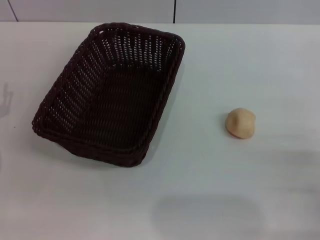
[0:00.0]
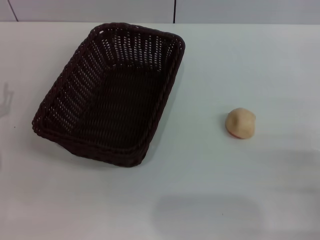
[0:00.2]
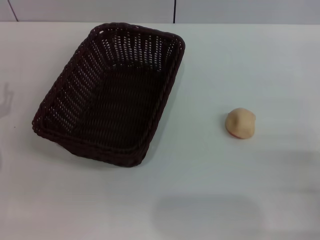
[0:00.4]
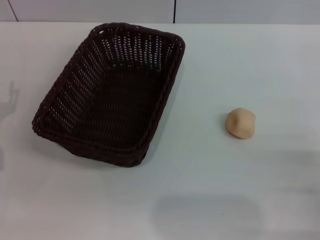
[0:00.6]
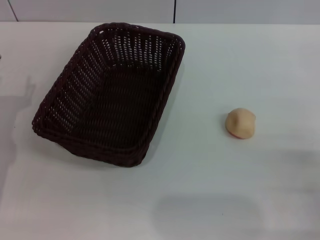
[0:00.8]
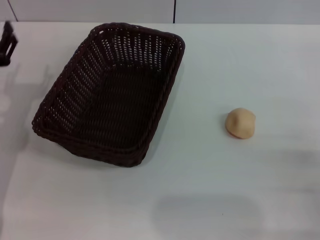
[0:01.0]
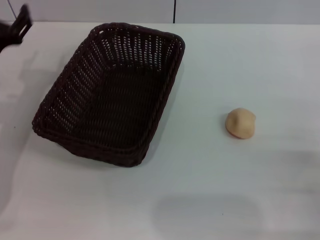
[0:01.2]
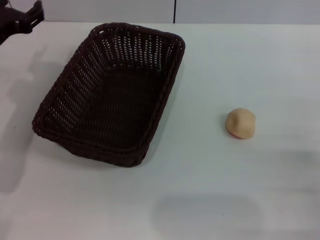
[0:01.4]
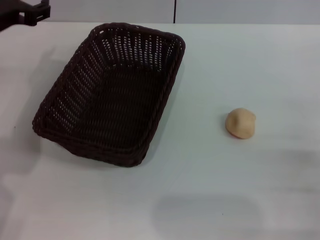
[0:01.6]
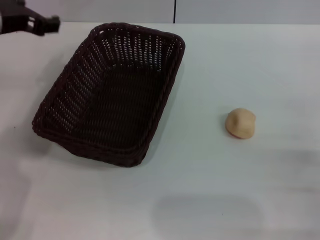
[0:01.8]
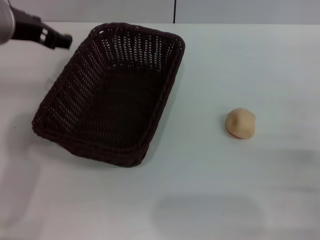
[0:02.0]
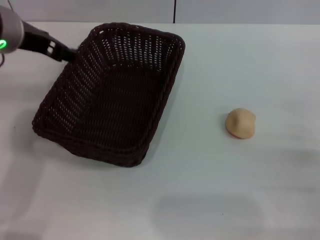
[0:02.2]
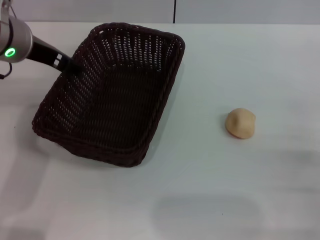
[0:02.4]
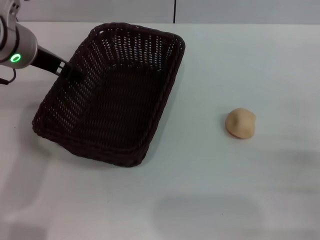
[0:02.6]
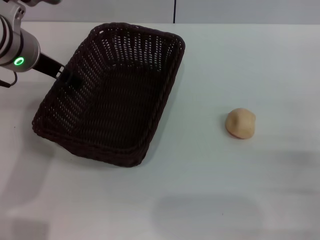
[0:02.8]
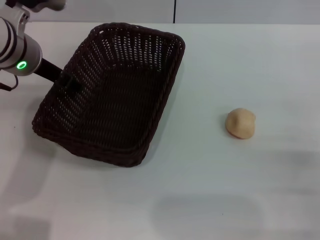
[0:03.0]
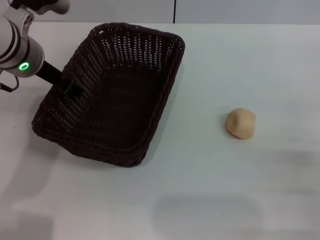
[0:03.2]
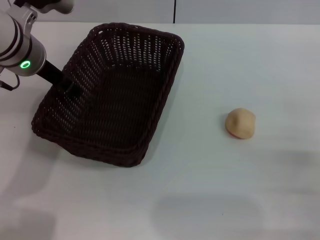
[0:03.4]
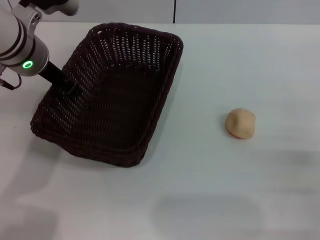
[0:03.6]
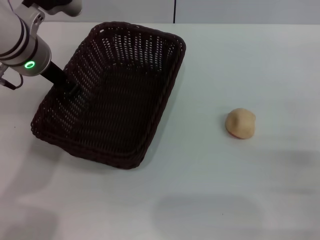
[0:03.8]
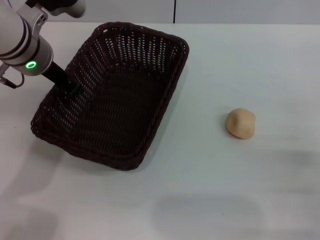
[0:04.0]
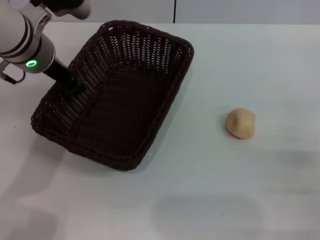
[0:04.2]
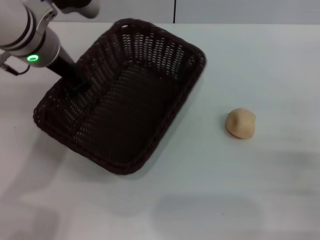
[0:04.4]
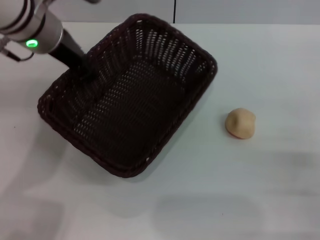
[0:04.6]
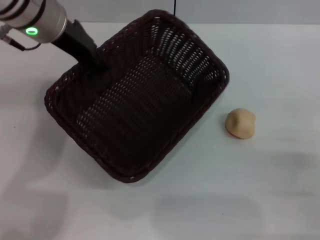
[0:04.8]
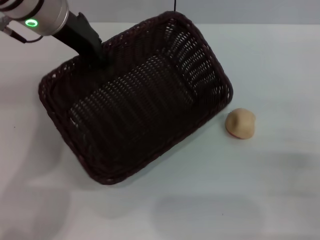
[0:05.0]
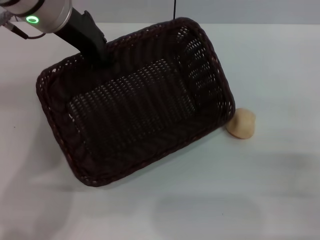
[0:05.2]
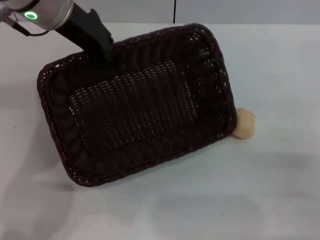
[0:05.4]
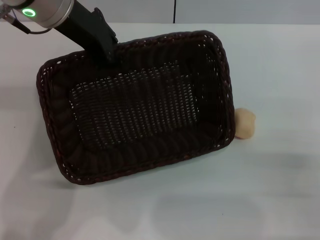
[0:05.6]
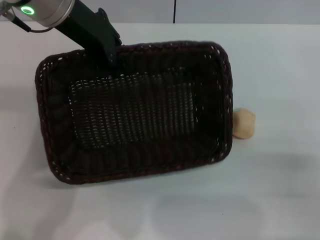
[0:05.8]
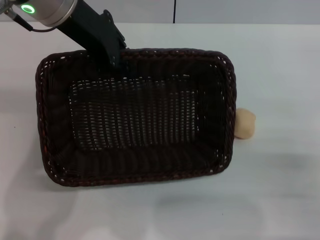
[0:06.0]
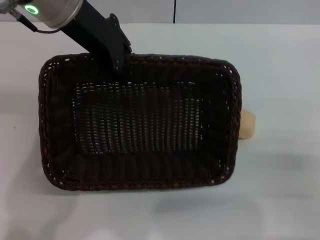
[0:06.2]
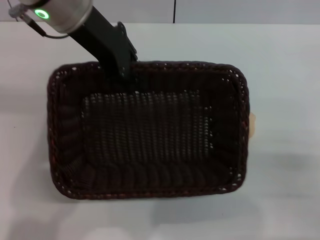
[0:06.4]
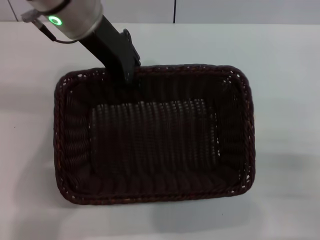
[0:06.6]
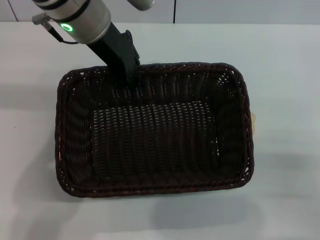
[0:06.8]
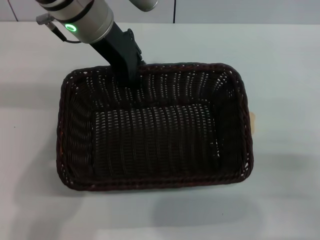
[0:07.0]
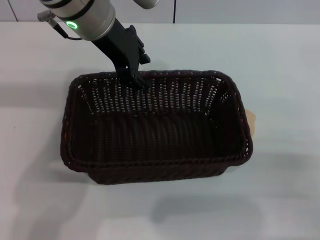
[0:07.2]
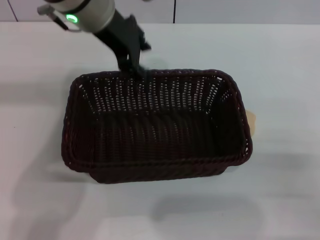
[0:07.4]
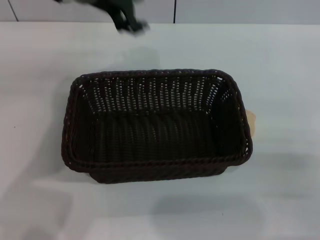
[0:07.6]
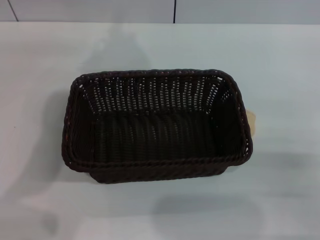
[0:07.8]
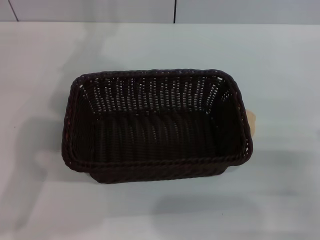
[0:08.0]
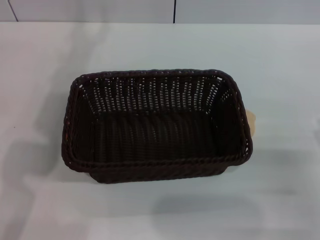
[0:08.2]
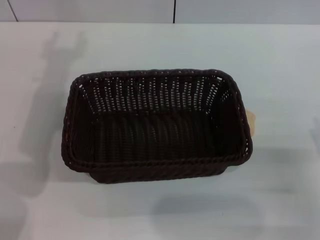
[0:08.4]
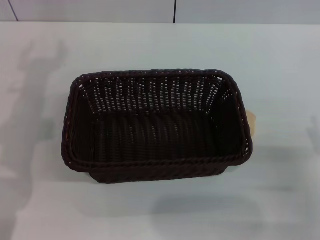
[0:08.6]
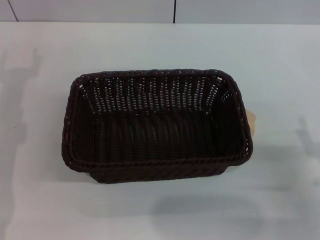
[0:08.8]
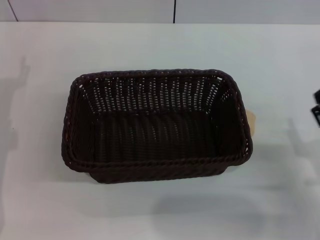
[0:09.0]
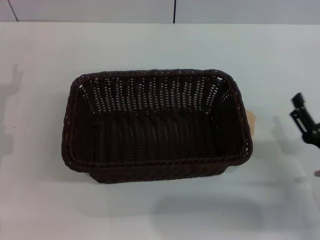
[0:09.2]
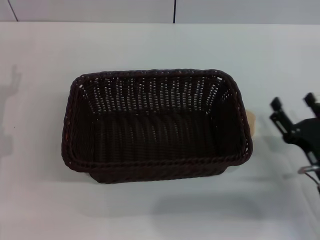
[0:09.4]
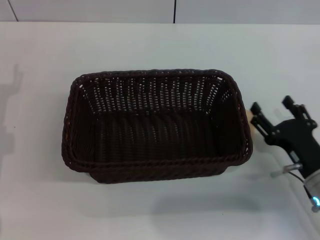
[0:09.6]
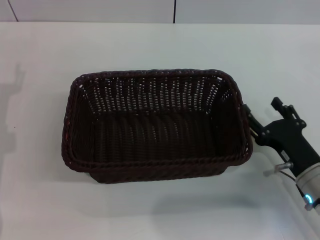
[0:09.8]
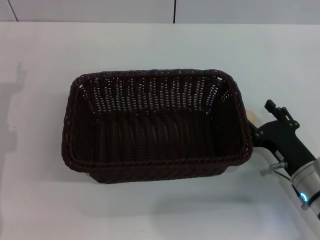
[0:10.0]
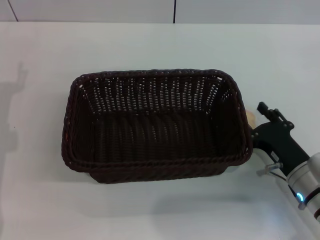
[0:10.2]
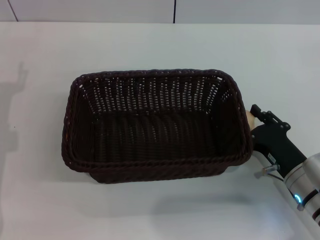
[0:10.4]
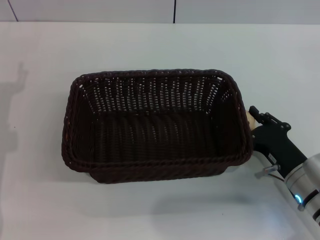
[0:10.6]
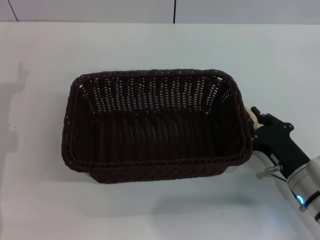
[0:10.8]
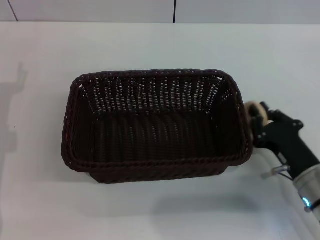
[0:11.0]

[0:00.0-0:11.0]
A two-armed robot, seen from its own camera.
Step, 0.0 to 7.4 s: Move the basket to the center of view with the left gripper.
0.0 to 1.6 s: The left gripper goes some 20 cm upward, forward and to the right.
1.6 to 3.2 s: The left gripper ends up about 5 cm from where it was.
3.2 to 4.8 s: The left gripper travels upward by approximately 5 cm, and closes.
6.2 to 7.8 s: The left gripper opens up.
7.8 to 9.4 s: The right gripper goes approximately 5 cm forward.
9.4 to 11.0 s: The right gripper closes up.

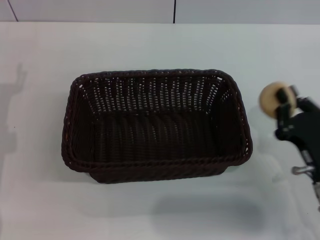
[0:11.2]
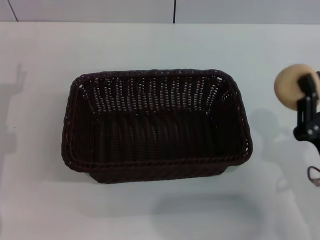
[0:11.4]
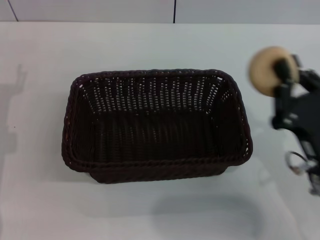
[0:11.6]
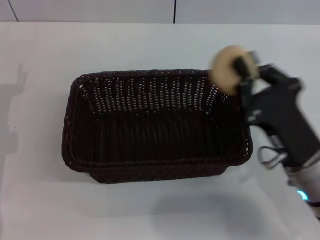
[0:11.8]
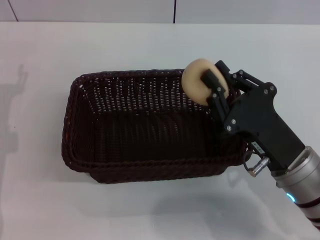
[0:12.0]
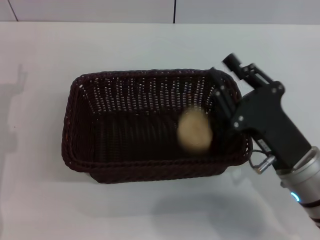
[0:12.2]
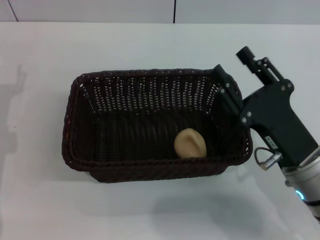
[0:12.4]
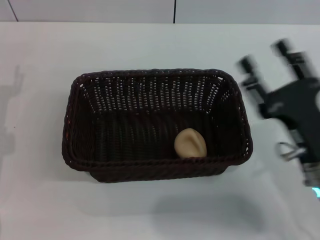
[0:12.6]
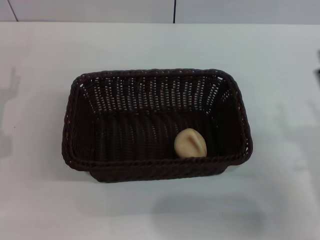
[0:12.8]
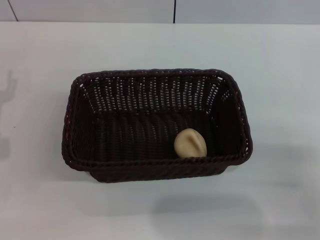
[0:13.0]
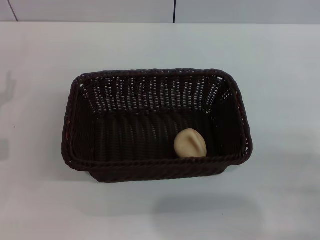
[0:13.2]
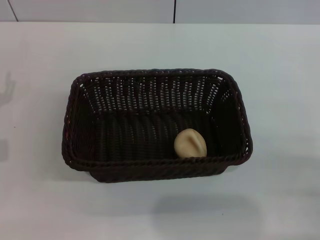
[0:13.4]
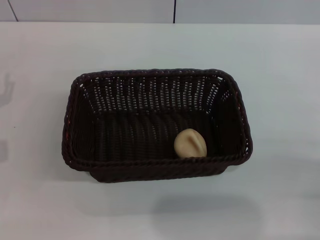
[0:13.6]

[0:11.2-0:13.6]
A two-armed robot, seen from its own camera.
Step, 11.4 to 12.4 s: Place the egg yolk pastry into the basket with the right gripper.
11.2 to 12.4 s: The right gripper moves some 5 cm.
12.4 to 13.6 s: The right gripper moves to the right and backward, approximately 15 cm, and opens.

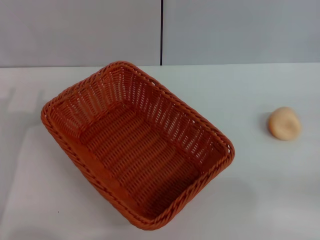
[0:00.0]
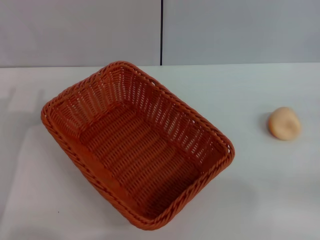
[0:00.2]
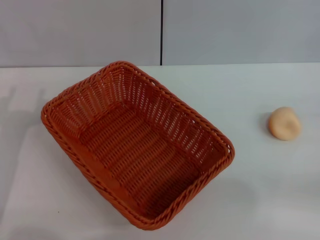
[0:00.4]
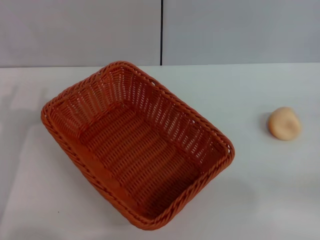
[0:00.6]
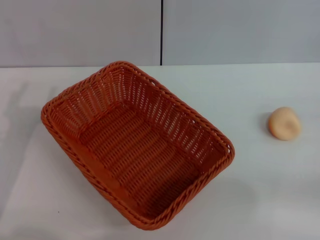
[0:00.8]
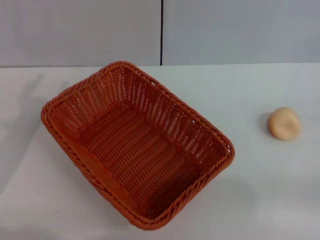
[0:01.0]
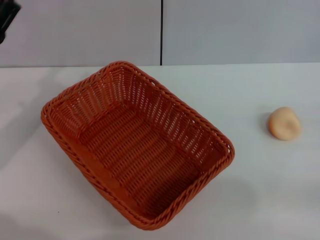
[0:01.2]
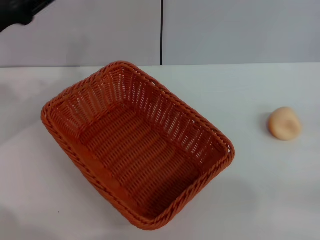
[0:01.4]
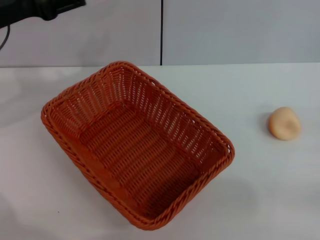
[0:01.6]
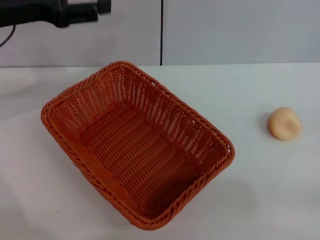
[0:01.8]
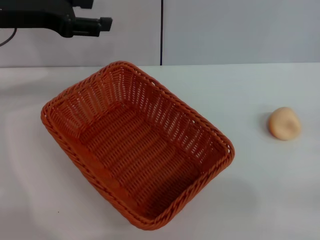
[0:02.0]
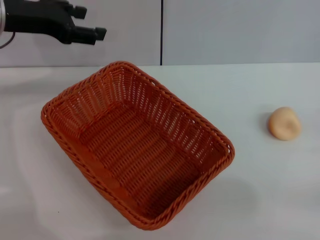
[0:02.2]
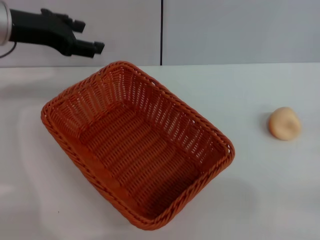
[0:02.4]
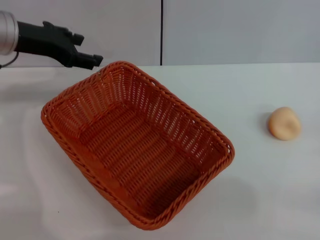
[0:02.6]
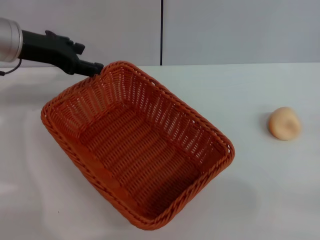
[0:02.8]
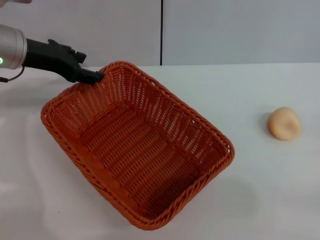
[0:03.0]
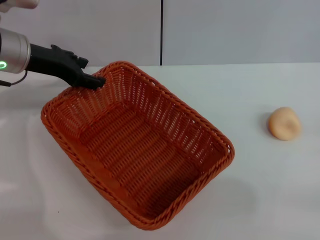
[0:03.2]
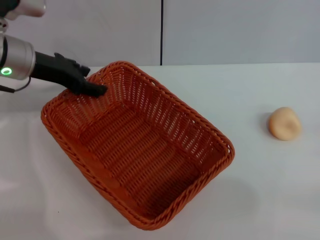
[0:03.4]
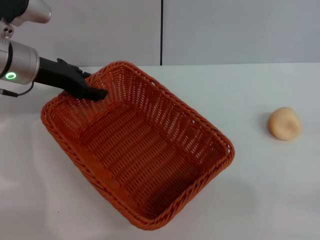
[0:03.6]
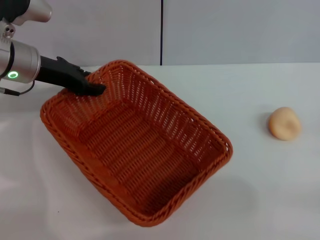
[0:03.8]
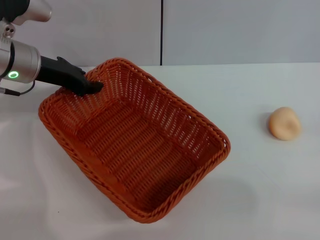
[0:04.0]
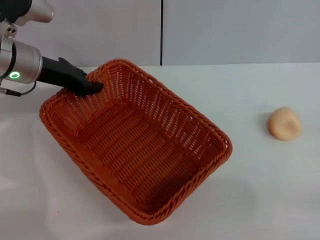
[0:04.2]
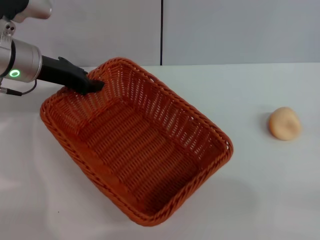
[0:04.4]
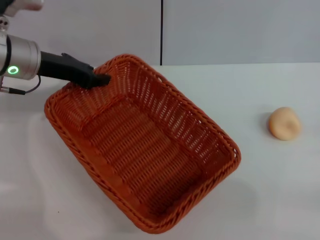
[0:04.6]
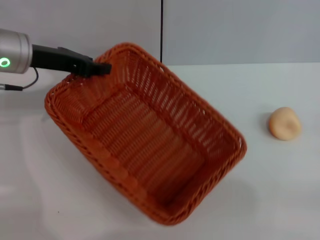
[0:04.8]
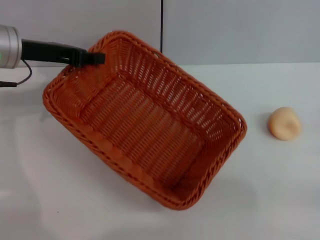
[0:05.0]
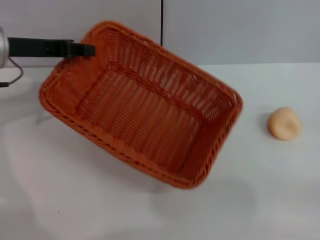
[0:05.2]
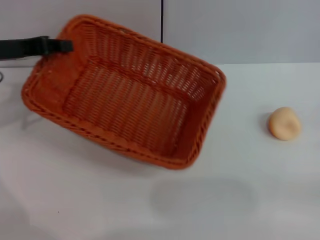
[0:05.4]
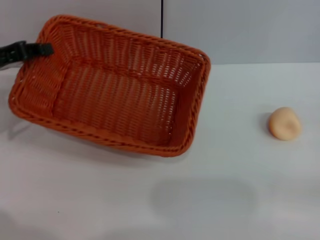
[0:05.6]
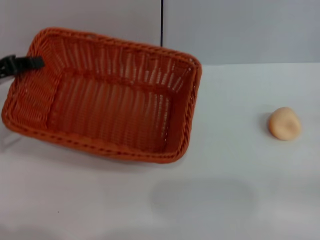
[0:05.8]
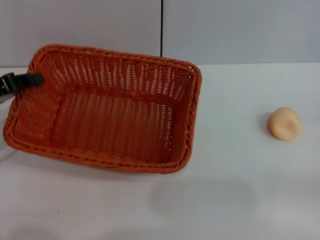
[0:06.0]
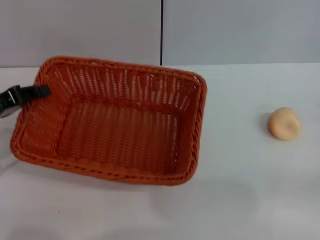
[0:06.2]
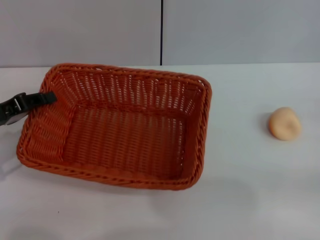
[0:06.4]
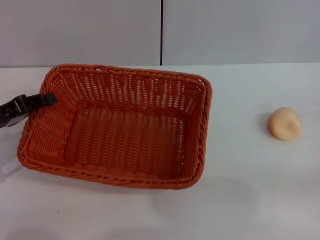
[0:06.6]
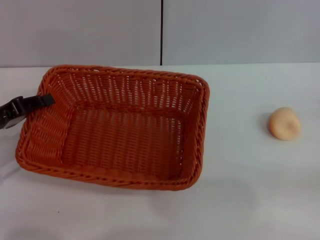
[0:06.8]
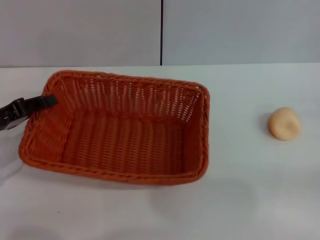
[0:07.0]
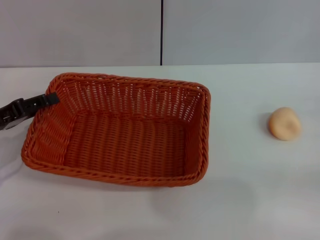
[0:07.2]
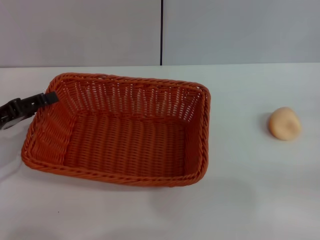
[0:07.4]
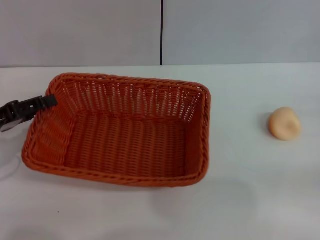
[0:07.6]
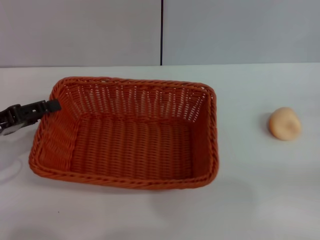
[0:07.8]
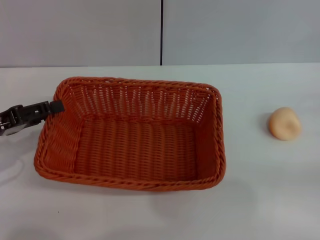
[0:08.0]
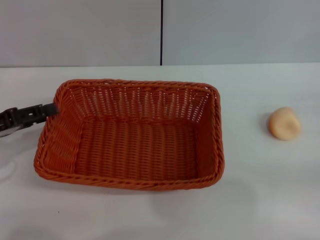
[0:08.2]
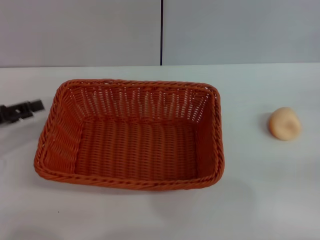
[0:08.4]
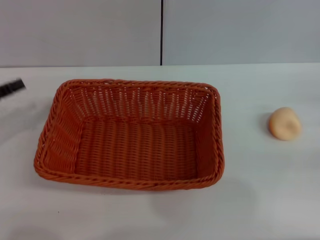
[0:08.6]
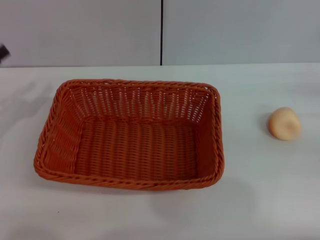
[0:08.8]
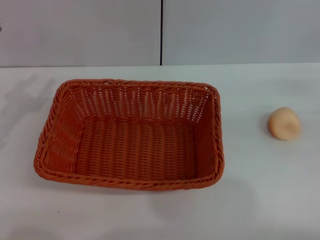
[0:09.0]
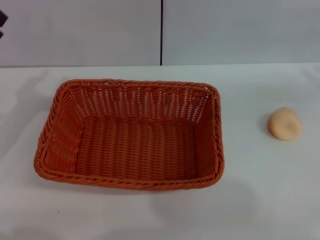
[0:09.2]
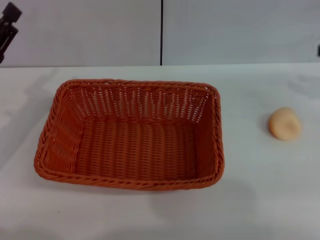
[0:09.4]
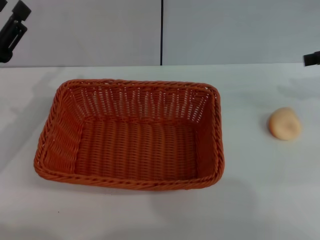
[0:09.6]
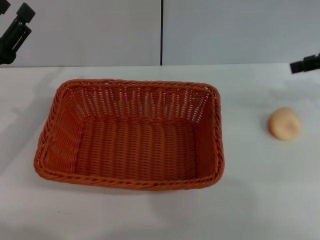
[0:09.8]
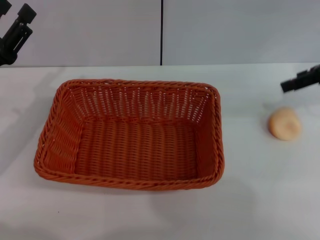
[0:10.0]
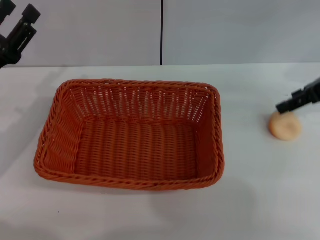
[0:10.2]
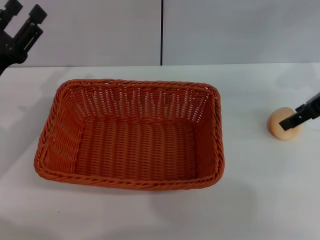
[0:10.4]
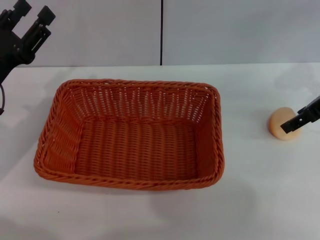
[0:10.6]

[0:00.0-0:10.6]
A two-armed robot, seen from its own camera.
Step, 0.0 to 8.4 s: Move the basket to the center of view with the left gripper.
0.0 to 1.6 s: The left gripper heads forward and upward, covering about 15 cm.
1.6 to 3.0 s: The left gripper moves some 5 cm.
3.0 to 4.6 s: The left gripper closes its fingers.
4.6 to 6.0 s: The left gripper shifts approximately 15 cm to the left and backward.
6.0 to 7.6 s: The left gripper opens up.
7.6 to 9.0 s: The right gripper is displaced upward and forward by roughly 10 cm.
9.0 to 10.6 s: The left gripper heads to the right, covering approximately 5 cm. The right gripper shifts some 15 cm to the left and forward, and opens up.
